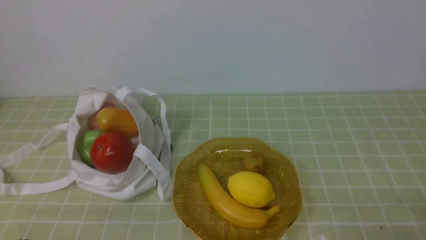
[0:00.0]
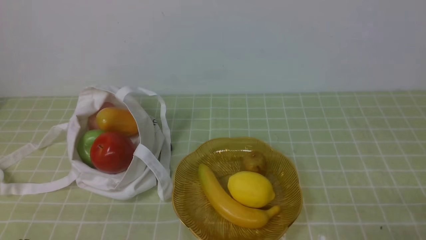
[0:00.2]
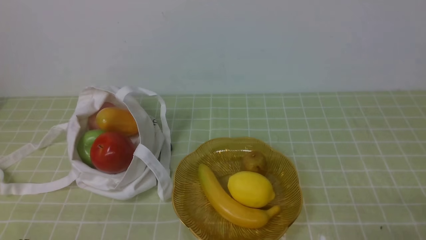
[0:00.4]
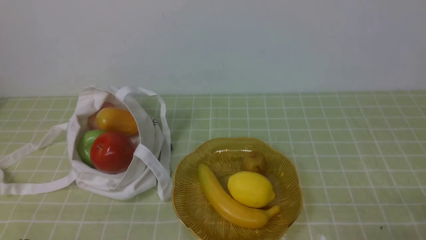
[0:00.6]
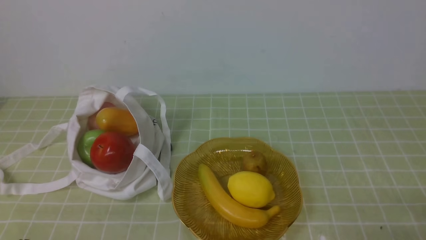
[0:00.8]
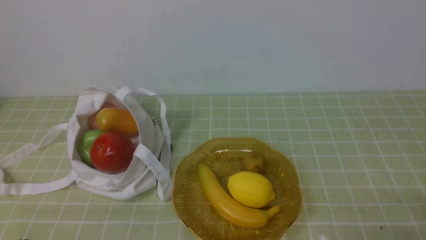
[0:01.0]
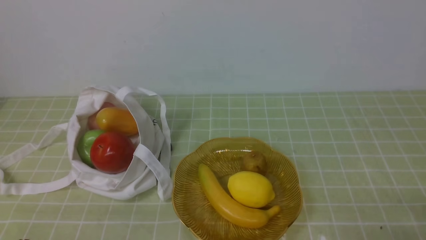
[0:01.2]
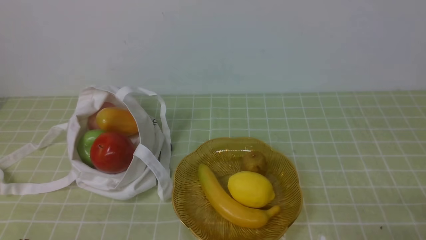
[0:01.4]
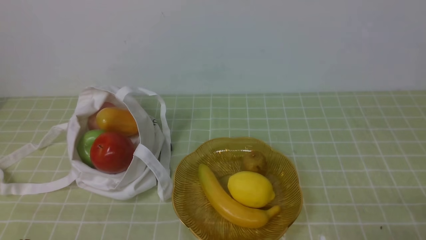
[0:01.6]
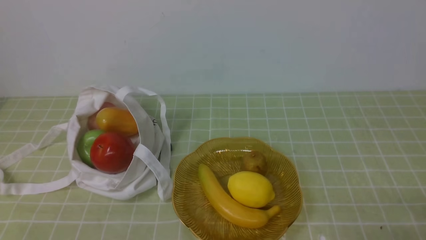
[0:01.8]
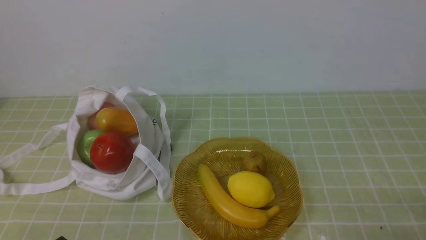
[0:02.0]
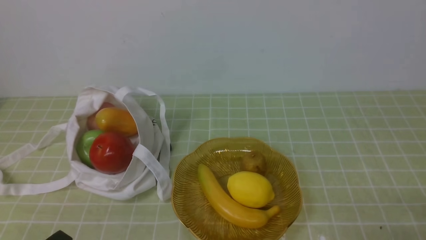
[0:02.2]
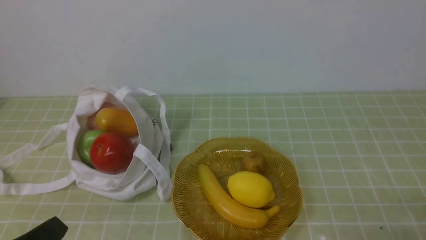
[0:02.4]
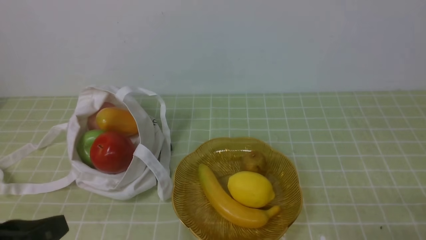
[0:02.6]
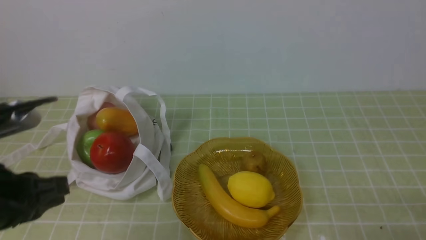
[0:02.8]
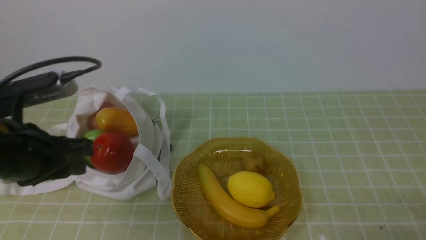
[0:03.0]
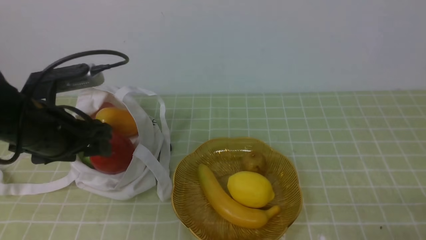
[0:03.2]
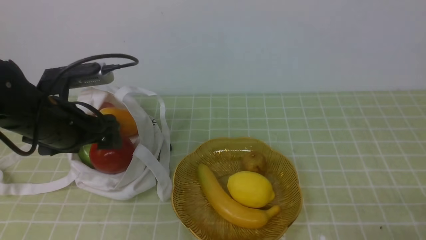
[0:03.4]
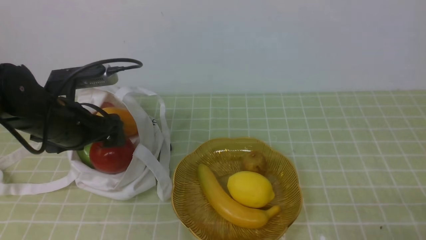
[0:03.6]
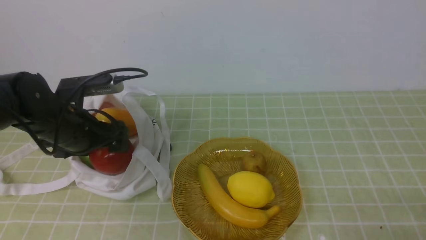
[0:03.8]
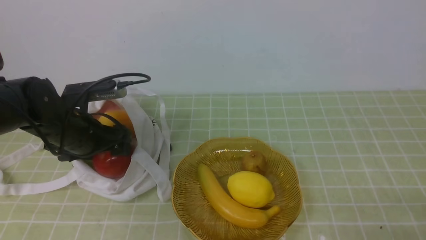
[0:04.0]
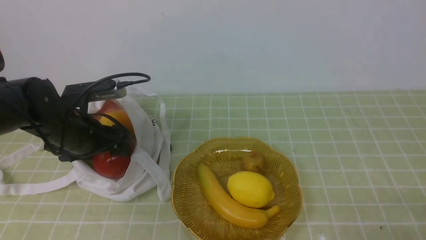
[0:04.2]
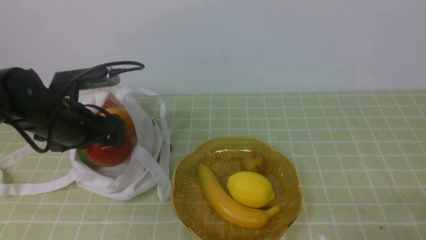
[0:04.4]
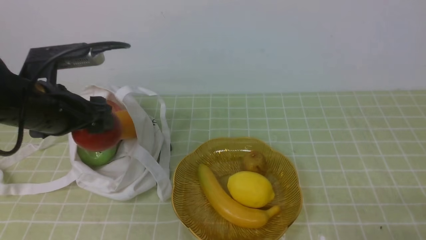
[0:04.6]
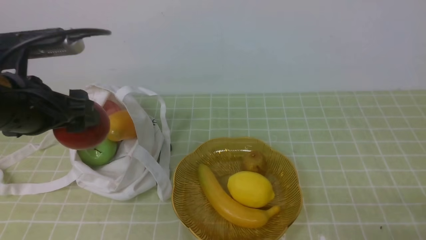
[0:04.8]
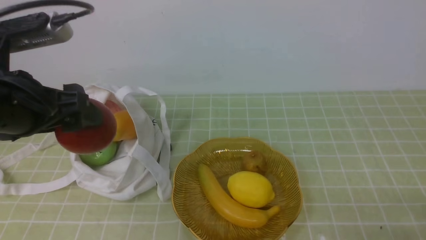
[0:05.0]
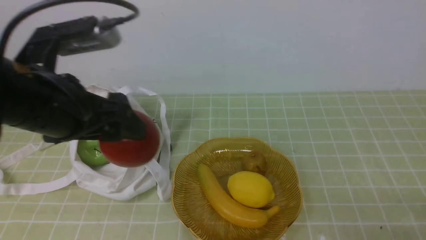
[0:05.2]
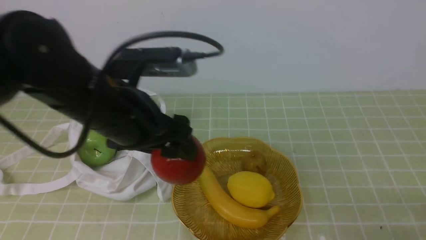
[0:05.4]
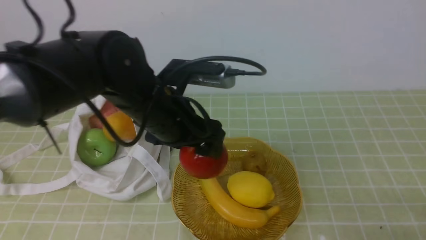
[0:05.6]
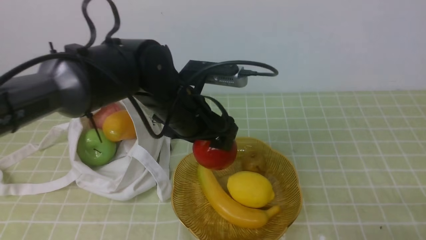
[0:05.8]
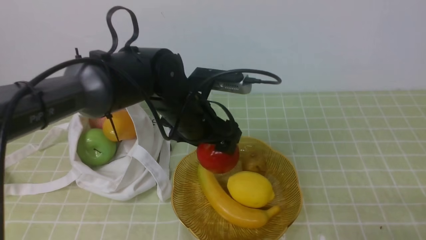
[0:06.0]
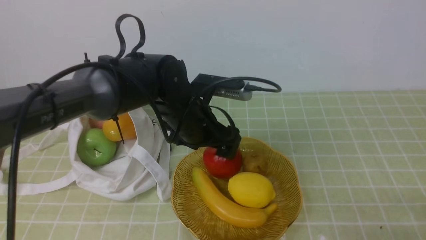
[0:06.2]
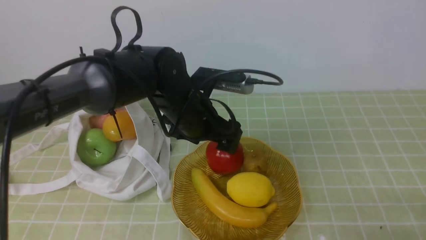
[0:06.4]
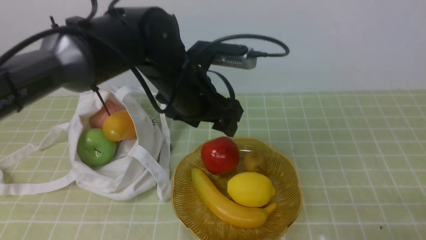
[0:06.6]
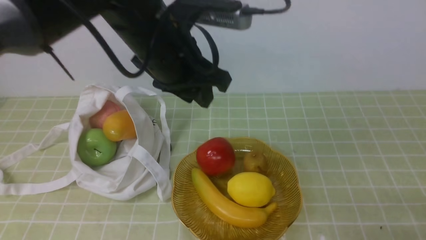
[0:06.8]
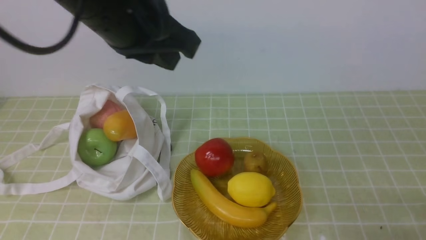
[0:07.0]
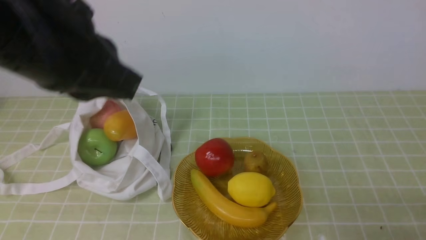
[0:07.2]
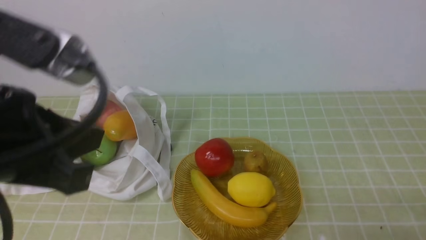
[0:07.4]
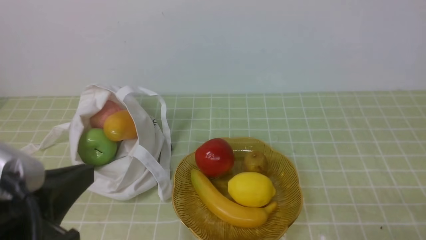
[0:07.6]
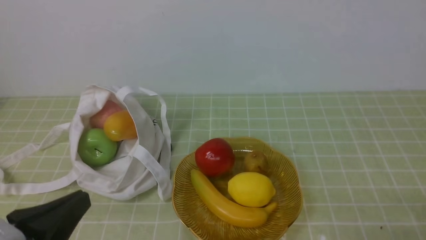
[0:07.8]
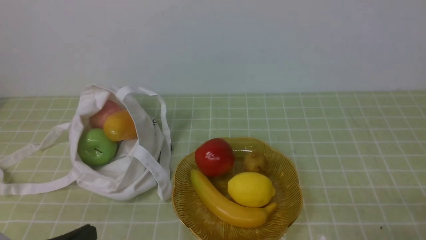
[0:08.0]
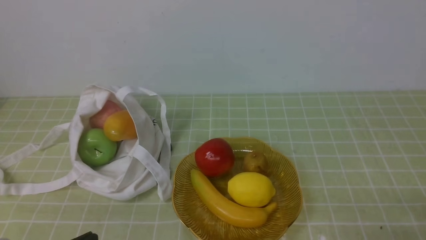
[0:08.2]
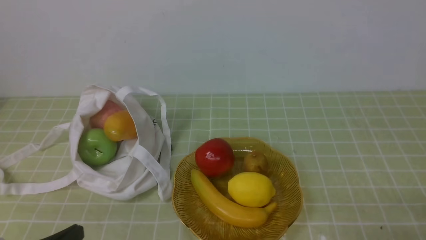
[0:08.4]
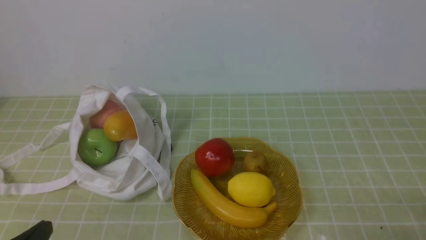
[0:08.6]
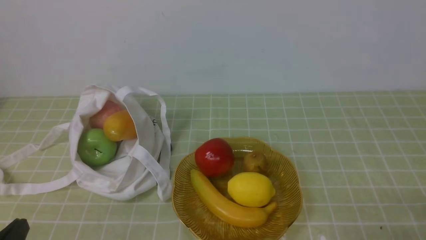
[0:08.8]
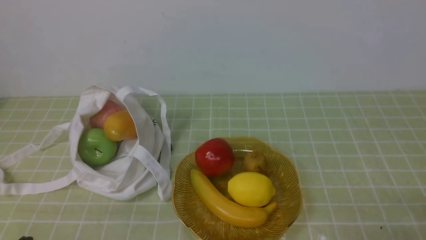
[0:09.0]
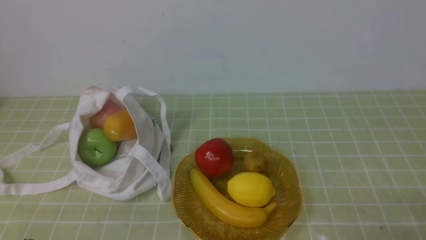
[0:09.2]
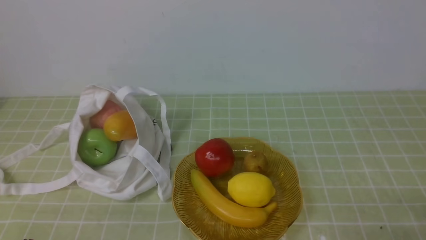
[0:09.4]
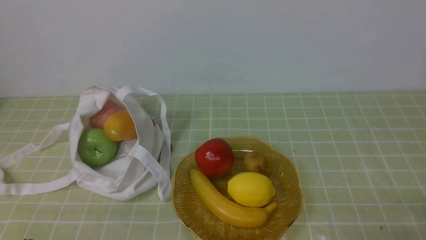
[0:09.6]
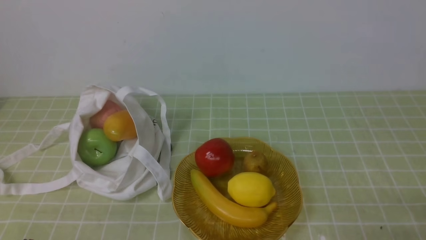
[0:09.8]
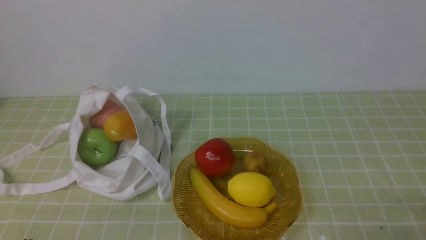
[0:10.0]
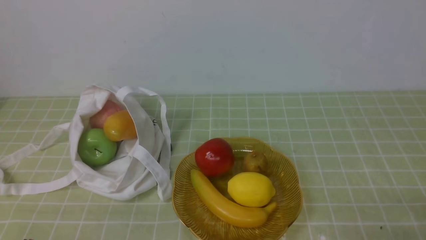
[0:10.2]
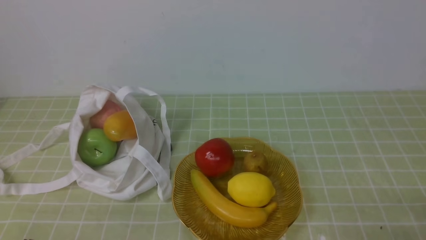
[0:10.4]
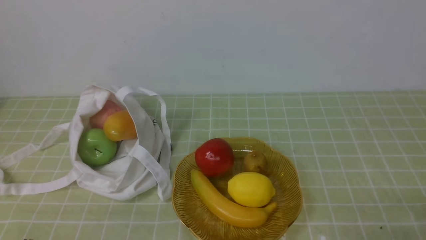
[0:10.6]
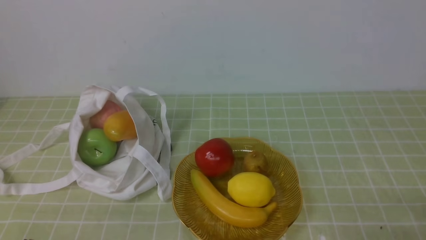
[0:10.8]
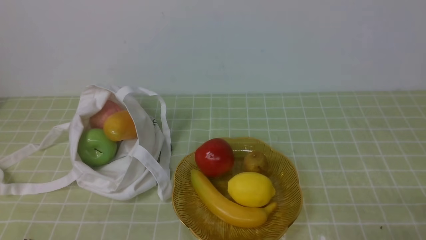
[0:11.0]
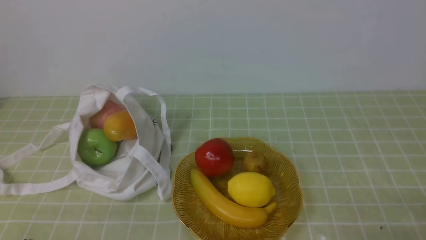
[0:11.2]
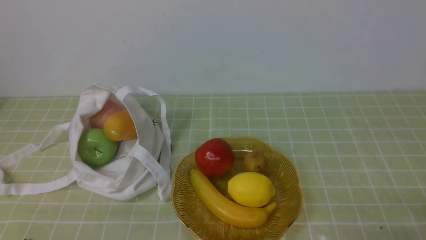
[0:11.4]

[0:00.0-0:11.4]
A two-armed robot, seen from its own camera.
Step, 0:00.0 to 0:04.2: use the left arm to grab an apple from the bag.
Step, 0:04.4 to 0:06.2: use the left arm to put the apple into the empty plate on the right.
0:00.0 to 0:01.4: Neither gripper changes place.
0:01.4 to 0:02.8: The left gripper moves upward and forward, roughly 15 cm.
0:02.8 to 0:04.2: The left gripper travels forward and downward by some 20 cm, and opens.
0:04.2 to 0:05.6: The left gripper moves to the right and upward, roughly 15 cm.
0:05.6 to 0:07.2: The left gripper goes some 20 cm upward, backward and to the left, and closes up.
0:07.2 to 0:08.6: The left gripper goes some 30 cm downward, backward and to the left.
0:10.0 to 0:11.4: The two grippers keep their place.

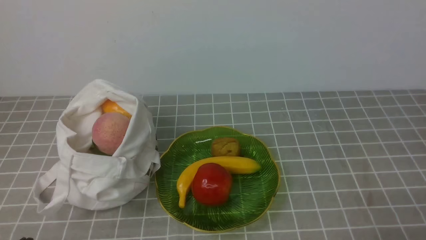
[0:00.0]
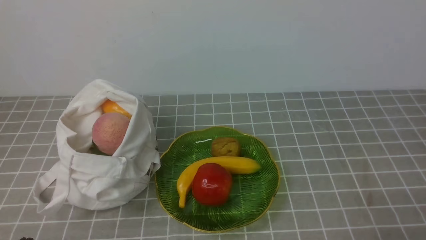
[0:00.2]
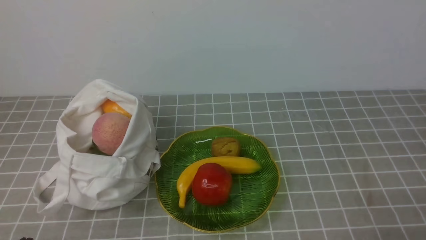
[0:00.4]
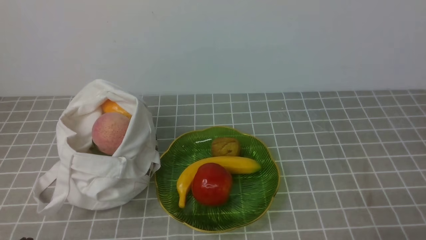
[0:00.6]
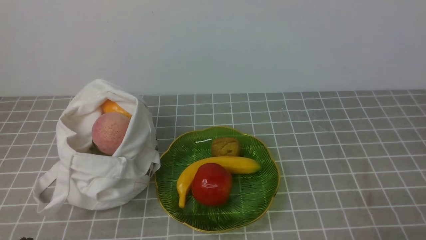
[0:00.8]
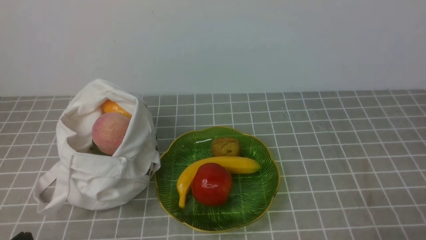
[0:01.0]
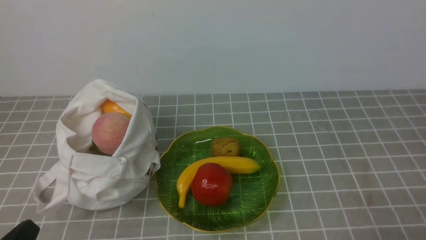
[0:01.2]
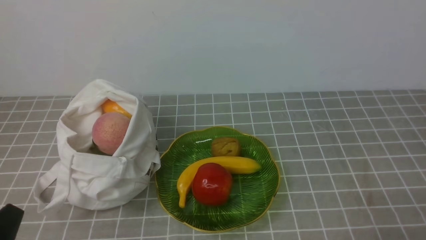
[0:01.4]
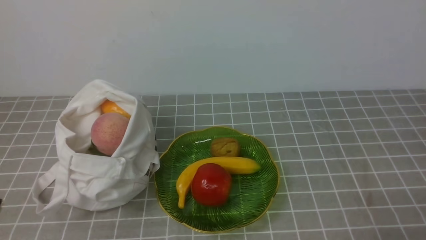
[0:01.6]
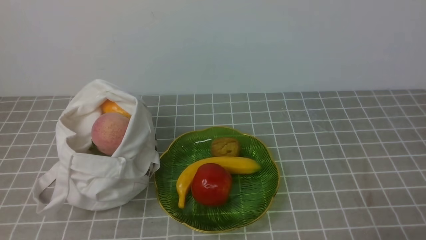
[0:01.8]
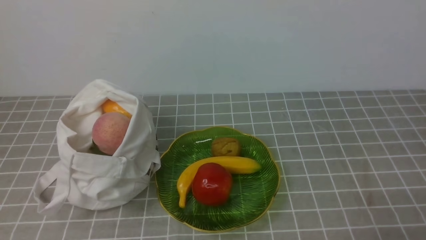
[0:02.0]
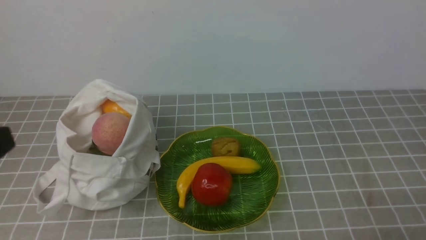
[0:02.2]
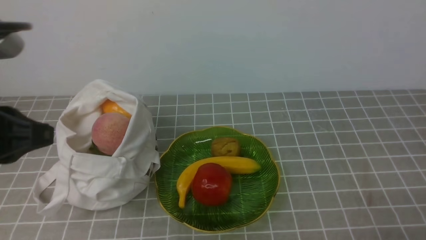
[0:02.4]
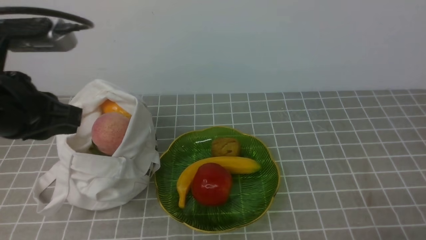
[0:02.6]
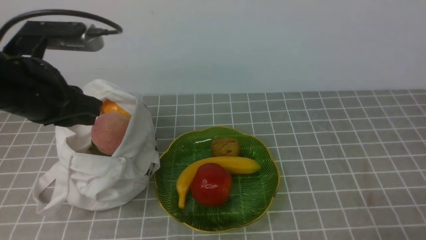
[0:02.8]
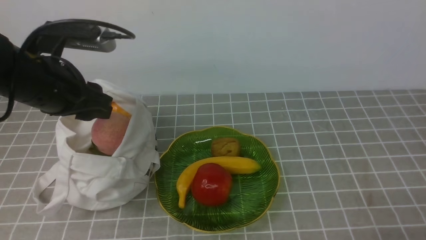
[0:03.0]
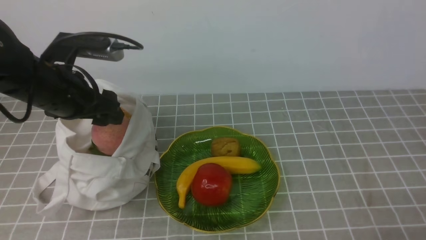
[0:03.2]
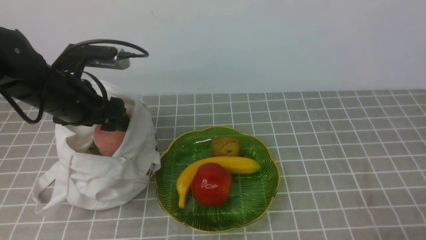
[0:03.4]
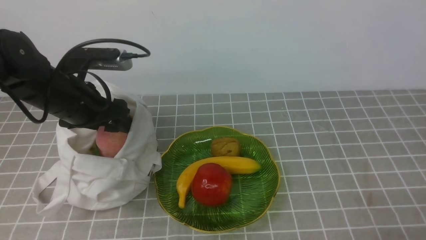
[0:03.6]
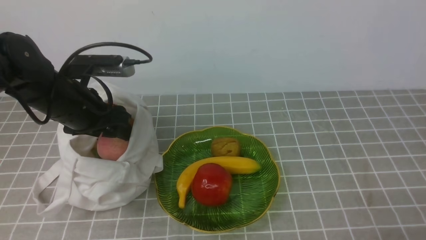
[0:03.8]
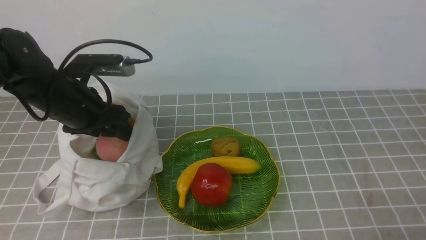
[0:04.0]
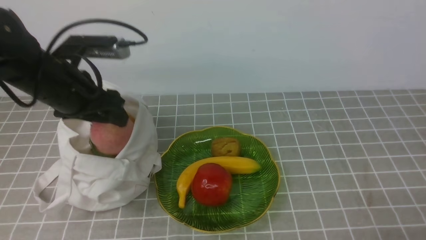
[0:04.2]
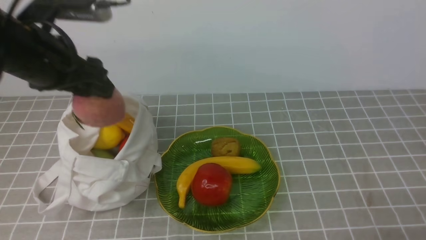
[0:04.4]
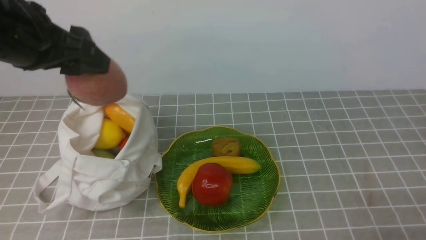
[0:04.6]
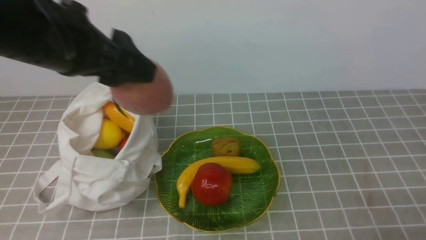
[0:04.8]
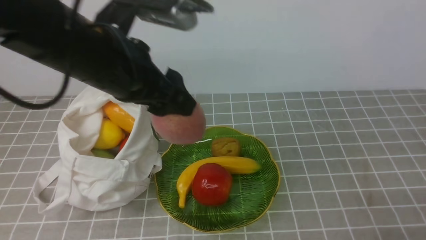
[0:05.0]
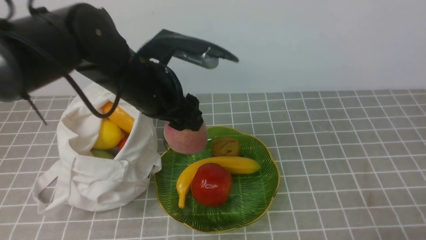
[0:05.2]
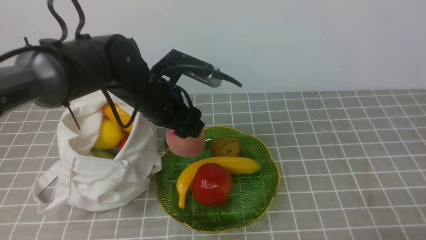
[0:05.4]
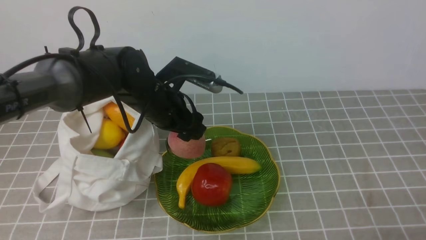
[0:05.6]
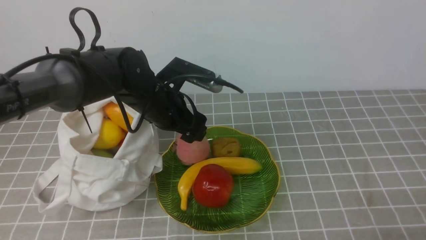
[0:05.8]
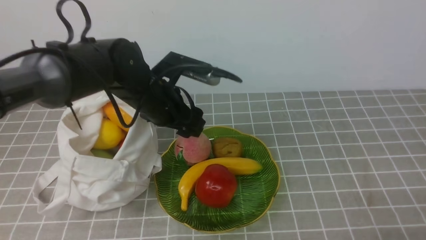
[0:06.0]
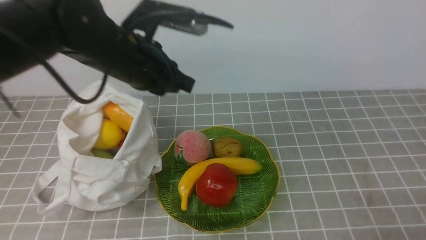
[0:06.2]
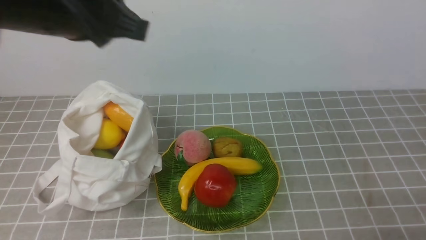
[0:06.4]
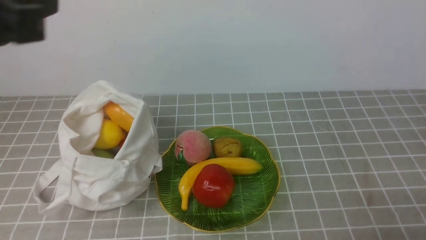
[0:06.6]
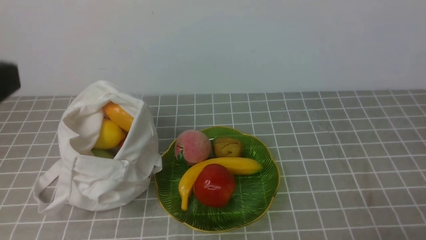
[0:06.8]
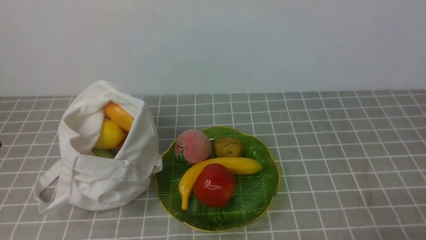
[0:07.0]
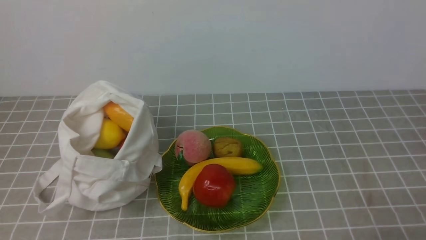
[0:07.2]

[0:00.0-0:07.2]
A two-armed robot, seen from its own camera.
Step, 0:00.0 to 0:03.6: use the left arm to grab a peach from the bag.
Step, 0:03.8 to 0:05.8: use the left arm to put the peach into the empty plate on the right.
0:01.4 to 0:02.8: The left gripper moves forward and upward, approximately 25 cm.
0:02.8 to 0:04.4: The left gripper reaches about 5 cm downward, then returns, and opens up.
0:04.4 to 0:05.8: The left gripper is displaced downward, to the right and forward by some 20 cm.
0:05.8 to 0:07.2: The left gripper moves backward and to the left, roughly 35 cm, and closes.
